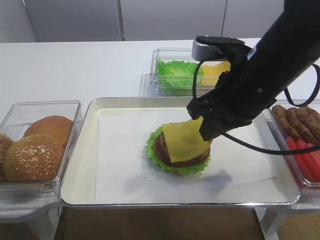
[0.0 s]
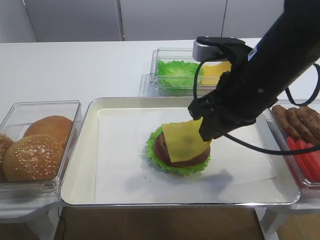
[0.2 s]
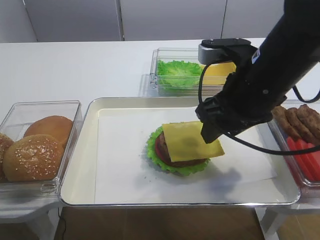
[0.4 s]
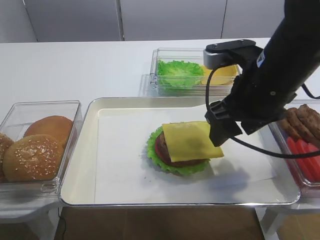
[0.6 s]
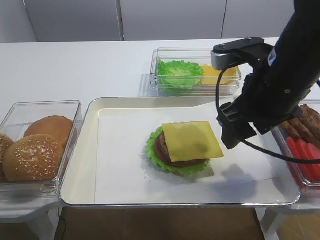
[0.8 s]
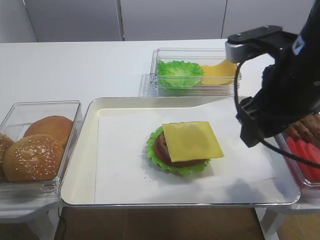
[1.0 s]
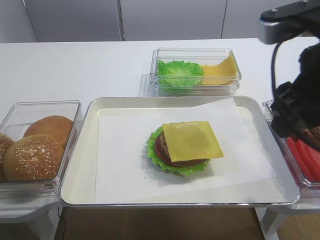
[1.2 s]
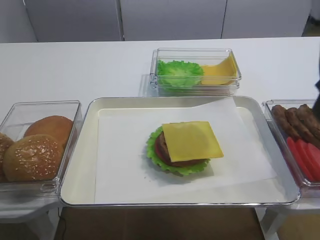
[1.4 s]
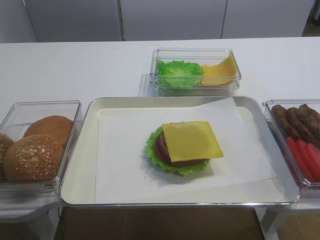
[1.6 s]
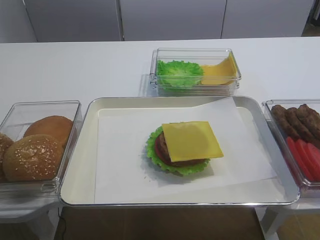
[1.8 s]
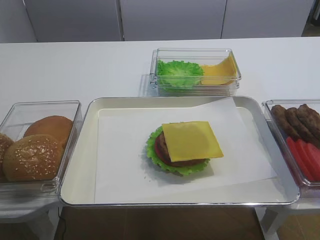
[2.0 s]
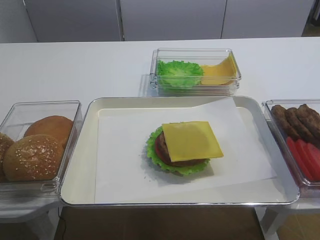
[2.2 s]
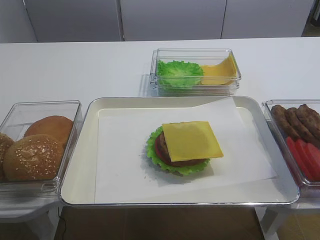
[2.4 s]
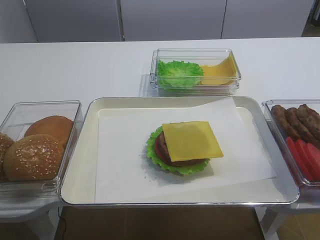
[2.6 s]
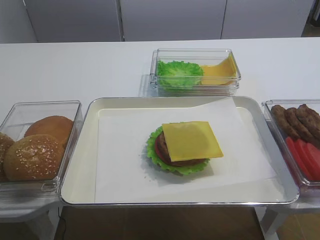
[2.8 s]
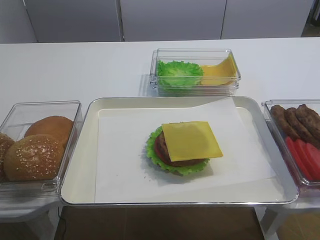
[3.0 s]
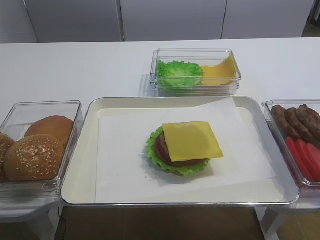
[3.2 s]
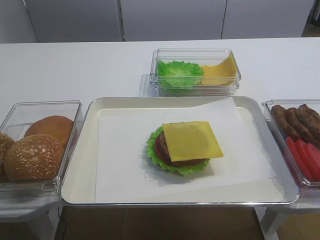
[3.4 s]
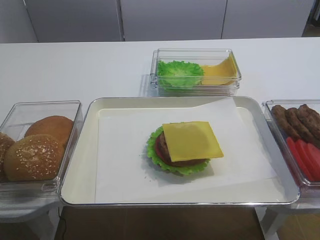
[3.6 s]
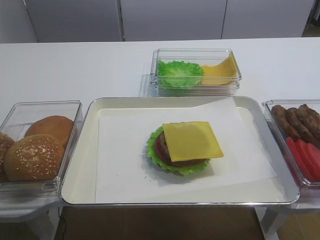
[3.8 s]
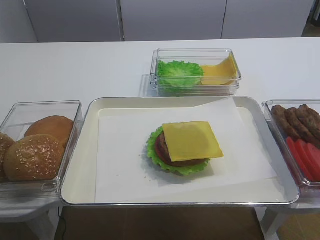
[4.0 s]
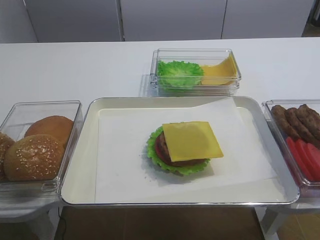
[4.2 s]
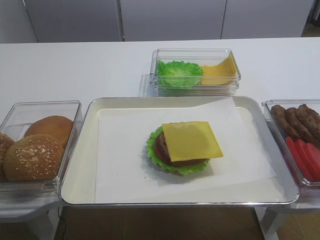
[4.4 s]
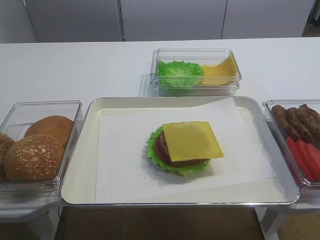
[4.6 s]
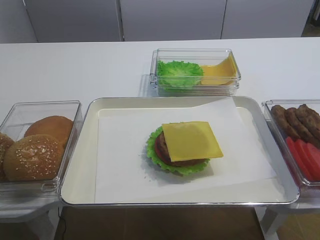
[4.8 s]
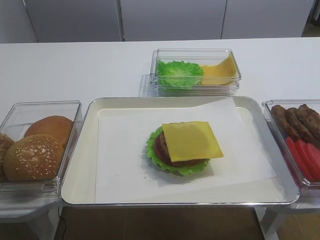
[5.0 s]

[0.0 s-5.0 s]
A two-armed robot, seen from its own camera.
0.0 to 1.6 s: The right gripper travels to the right, upward and backward by roughly 15 cm, and opens up.

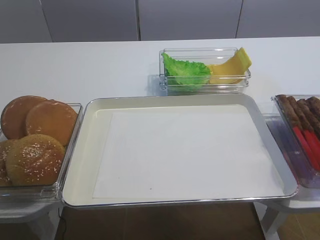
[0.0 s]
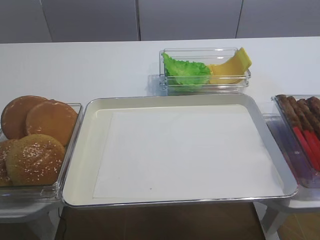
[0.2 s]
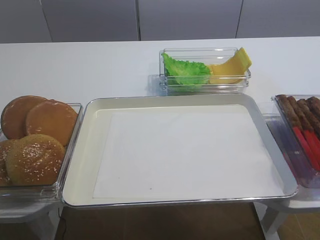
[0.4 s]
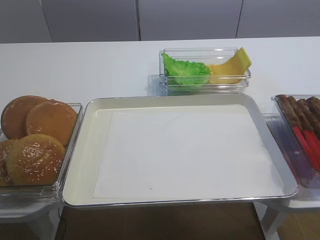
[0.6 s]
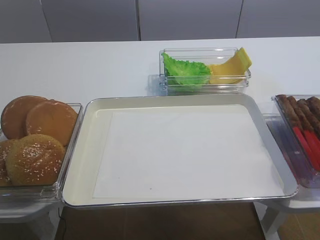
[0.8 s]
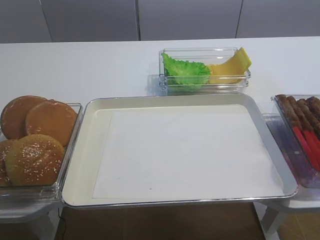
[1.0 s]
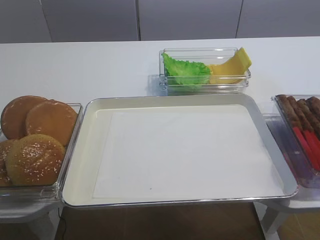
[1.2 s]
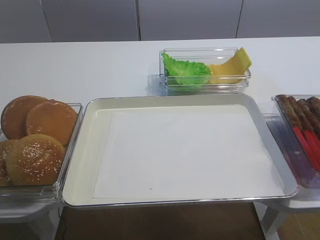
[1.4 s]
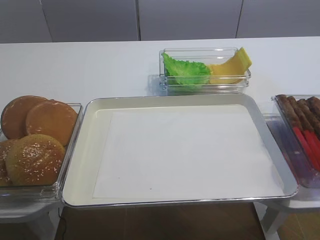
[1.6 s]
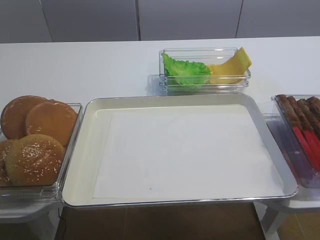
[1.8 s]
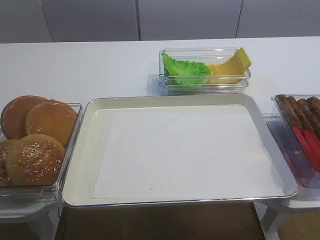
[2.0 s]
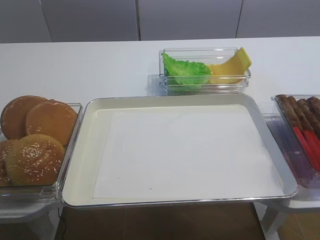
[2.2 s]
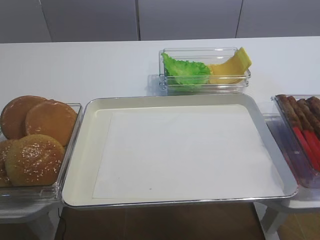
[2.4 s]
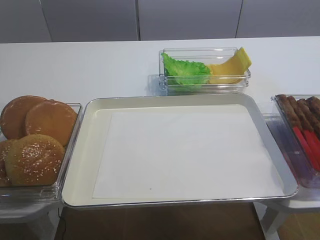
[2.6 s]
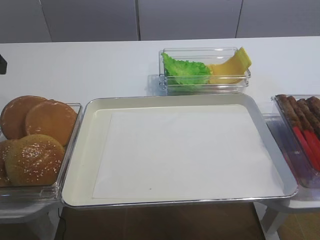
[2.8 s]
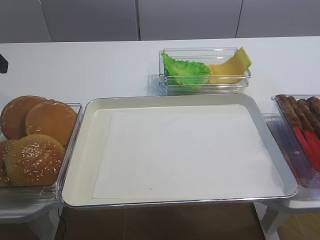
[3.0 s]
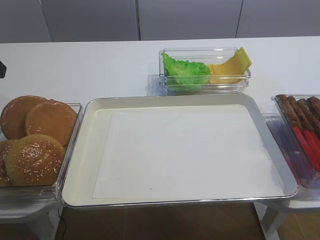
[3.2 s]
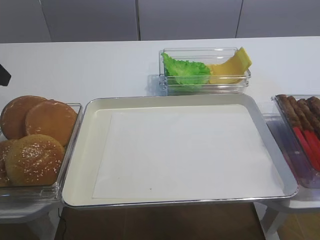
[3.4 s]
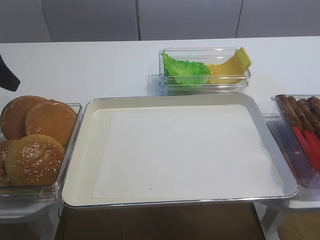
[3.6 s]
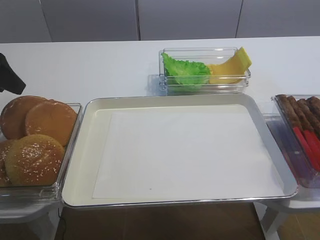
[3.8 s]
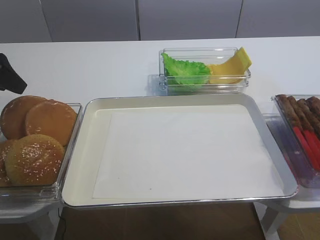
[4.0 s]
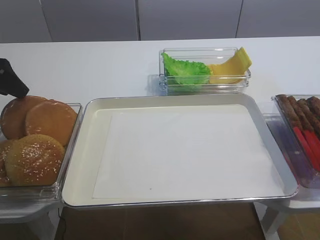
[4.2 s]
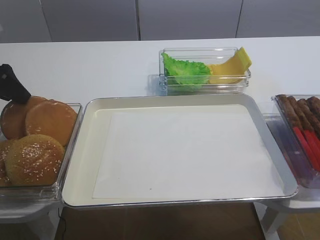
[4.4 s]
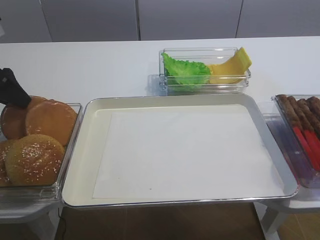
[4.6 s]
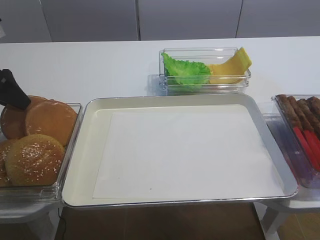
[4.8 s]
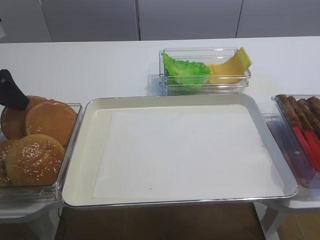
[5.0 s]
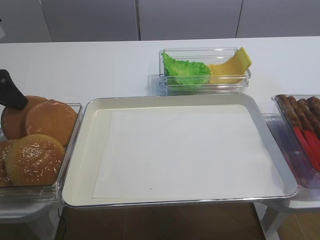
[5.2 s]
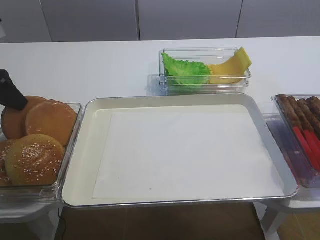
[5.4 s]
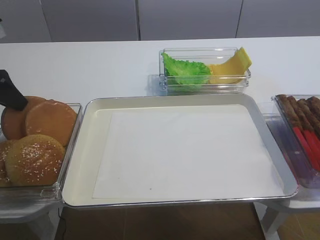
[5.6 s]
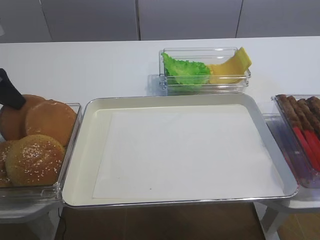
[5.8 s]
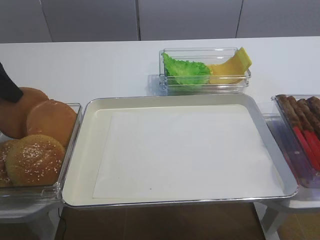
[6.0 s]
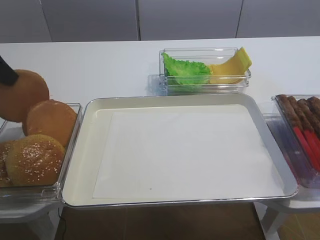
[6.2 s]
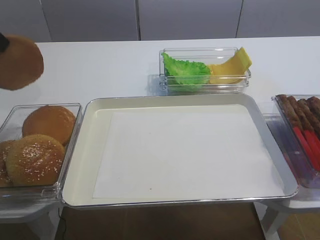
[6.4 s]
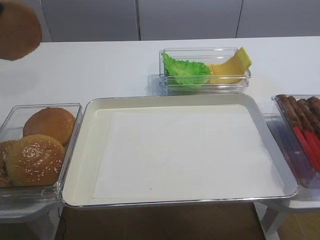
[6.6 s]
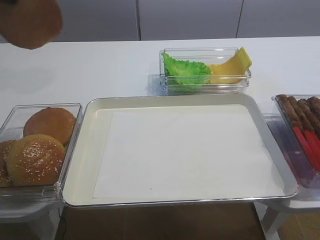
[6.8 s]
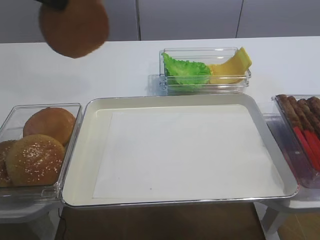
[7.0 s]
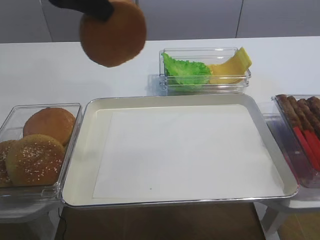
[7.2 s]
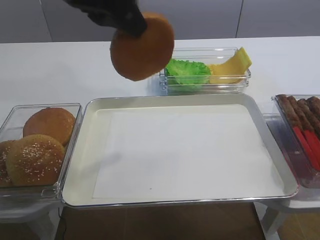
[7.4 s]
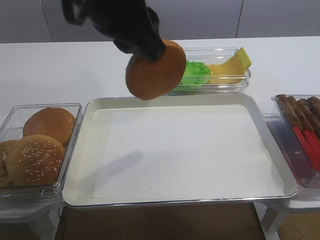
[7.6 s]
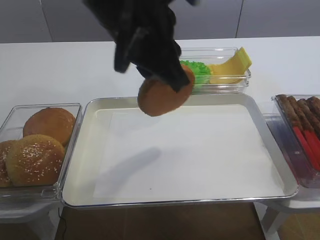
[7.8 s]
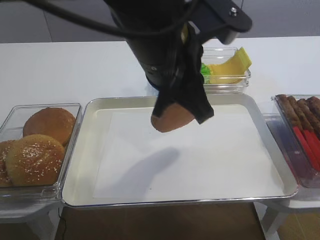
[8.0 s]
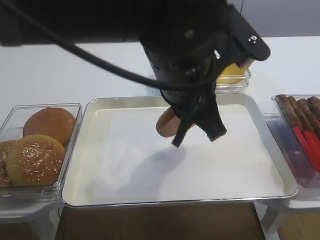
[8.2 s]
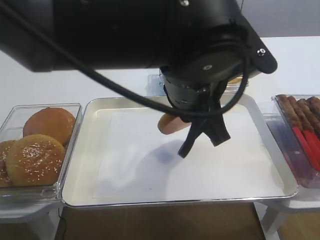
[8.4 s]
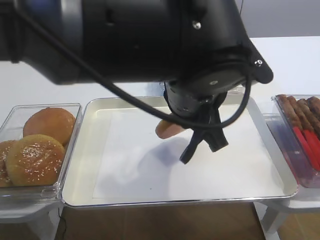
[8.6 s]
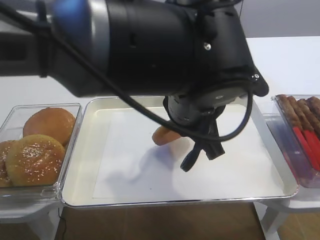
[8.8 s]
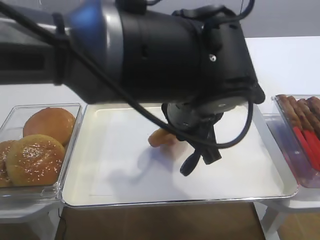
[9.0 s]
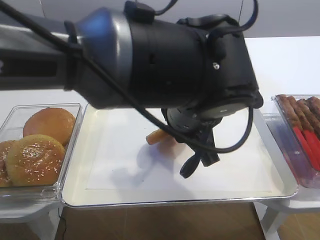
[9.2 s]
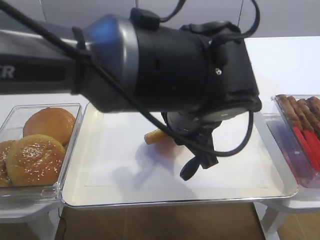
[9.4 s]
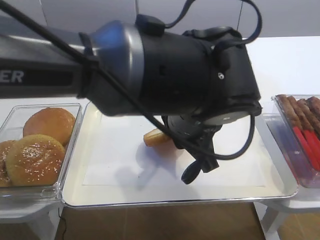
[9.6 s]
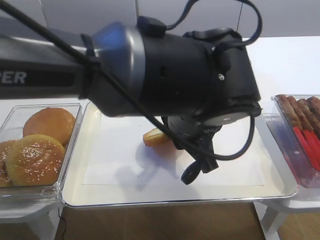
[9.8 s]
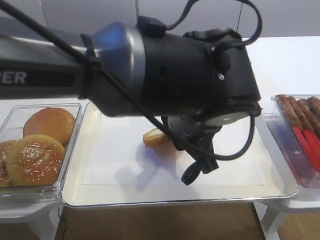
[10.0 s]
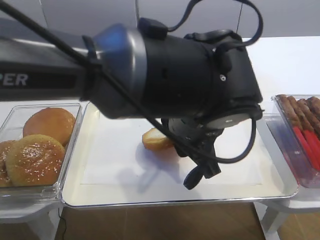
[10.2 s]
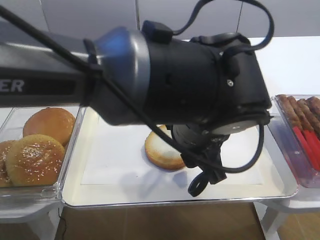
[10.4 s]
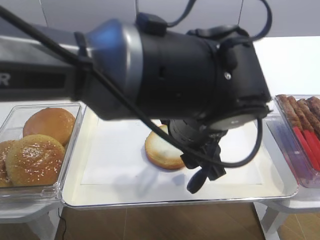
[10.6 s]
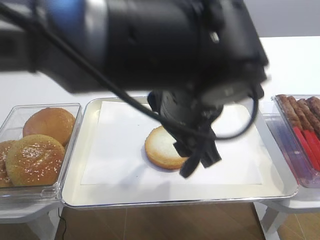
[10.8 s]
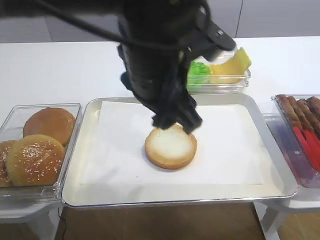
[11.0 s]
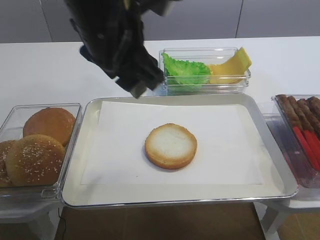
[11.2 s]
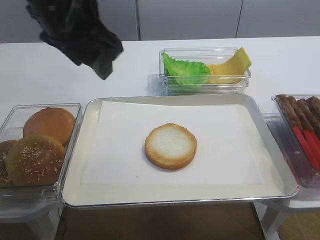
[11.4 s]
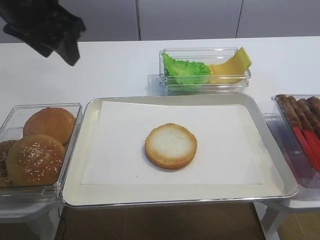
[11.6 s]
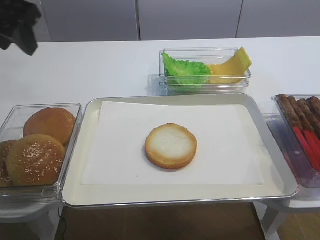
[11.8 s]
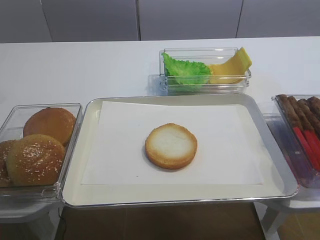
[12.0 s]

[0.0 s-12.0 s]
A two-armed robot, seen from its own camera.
Step, 0.0 to 6.2 s: Pick up the bread slice with the left gripper.
Step, 6.4 to 10.6 s: Place the bread slice on the tray with the left gripper.
3.0 to 4.4 s: The left gripper heads downward and forward, covering about 10 cm.
4.4 to 6.0 s: The left gripper closes.
6.0 to 7.6 s: The left gripper moves to the right and upward, roughly 25 cm.
7.6 to 9.0 s: The left gripper heads downward and to the right, covering some 15 cm.
9.0 to 10.4 s: The left gripper opens up.
10.4 to 12.0 s: The left gripper shifts about 35 cm to the left and upward.

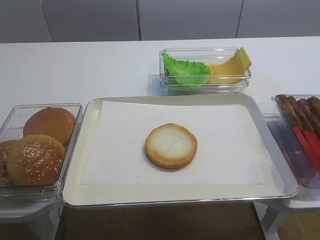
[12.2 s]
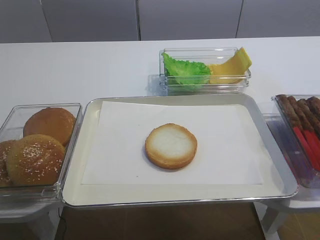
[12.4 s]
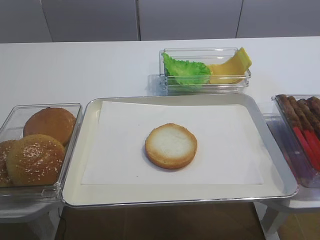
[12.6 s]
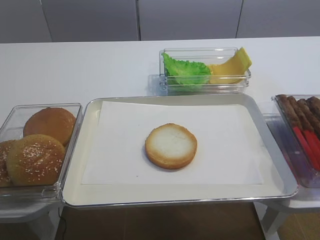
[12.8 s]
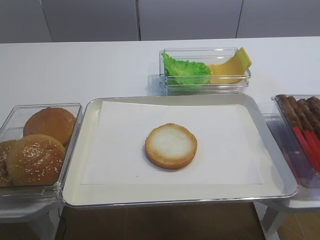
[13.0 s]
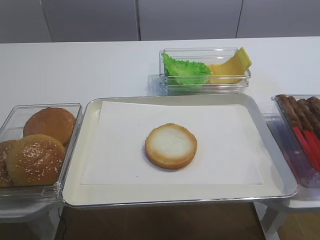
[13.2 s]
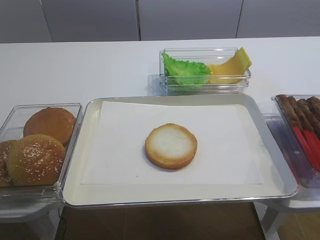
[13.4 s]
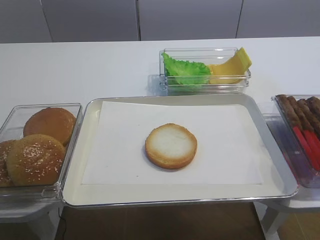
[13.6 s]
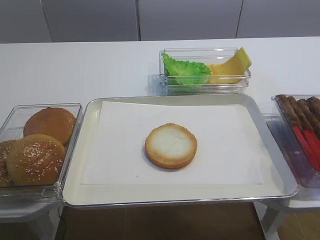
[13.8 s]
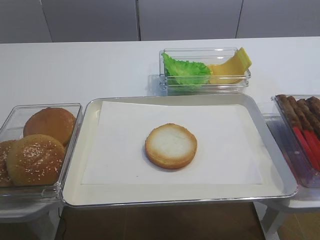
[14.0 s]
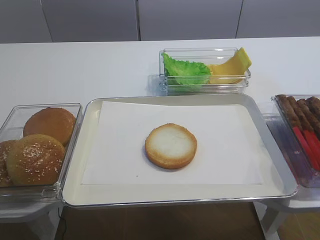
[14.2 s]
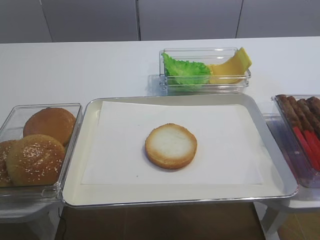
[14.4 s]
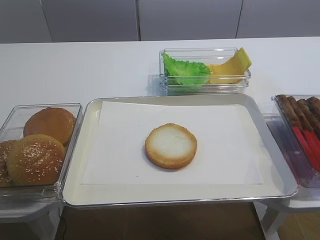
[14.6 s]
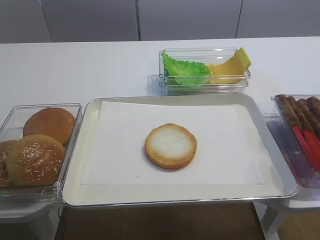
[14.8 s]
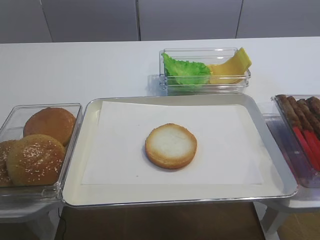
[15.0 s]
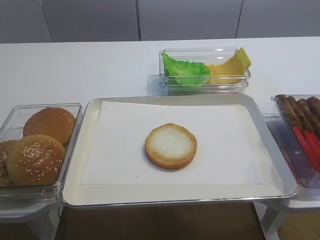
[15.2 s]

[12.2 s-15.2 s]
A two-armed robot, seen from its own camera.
13.8 to 15.2 s: The two grippers keep their place.
